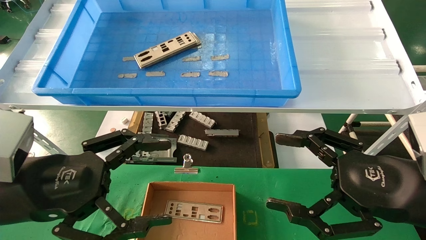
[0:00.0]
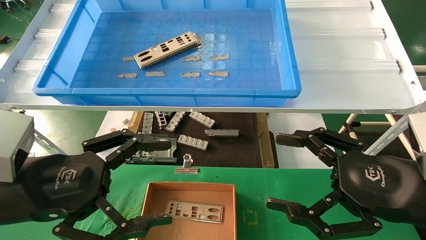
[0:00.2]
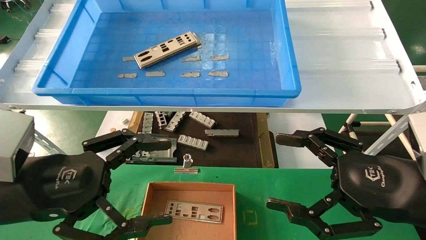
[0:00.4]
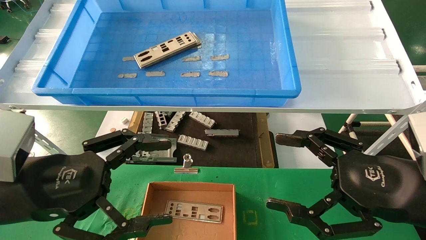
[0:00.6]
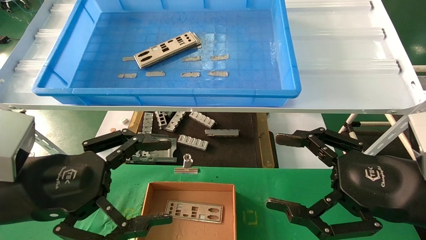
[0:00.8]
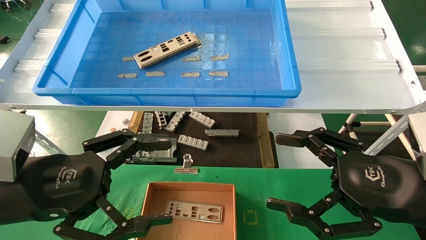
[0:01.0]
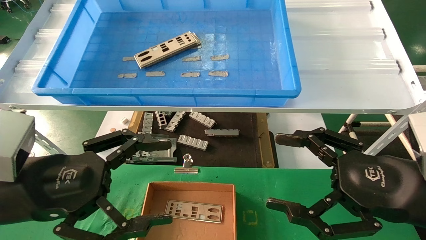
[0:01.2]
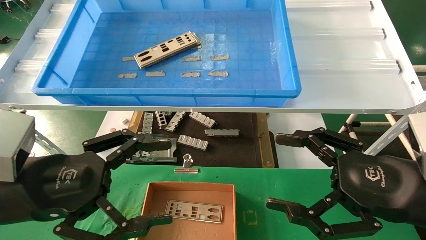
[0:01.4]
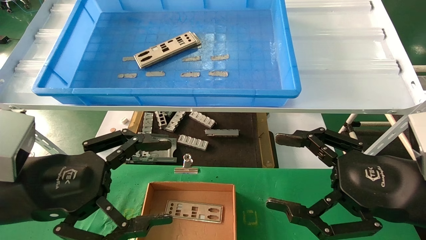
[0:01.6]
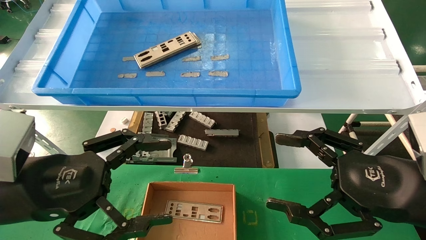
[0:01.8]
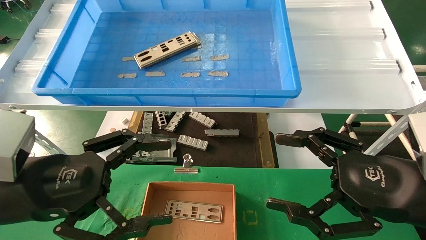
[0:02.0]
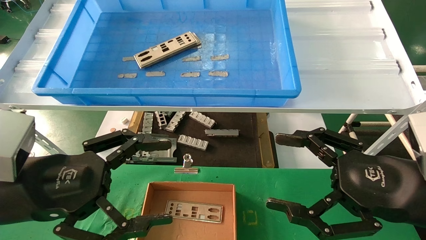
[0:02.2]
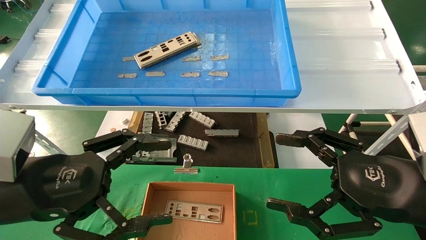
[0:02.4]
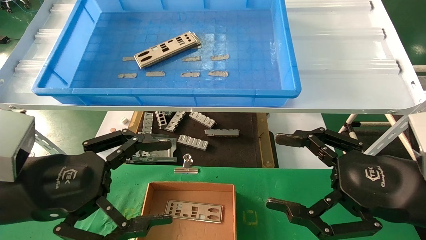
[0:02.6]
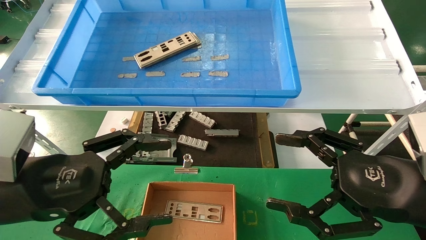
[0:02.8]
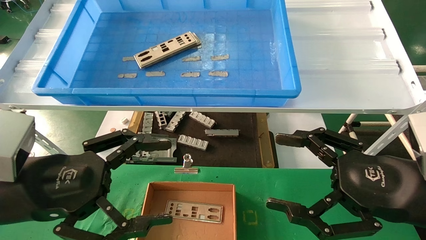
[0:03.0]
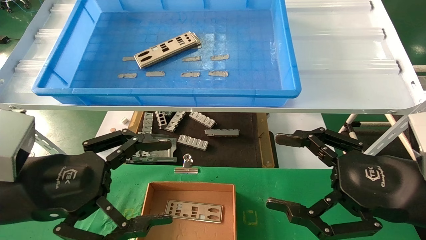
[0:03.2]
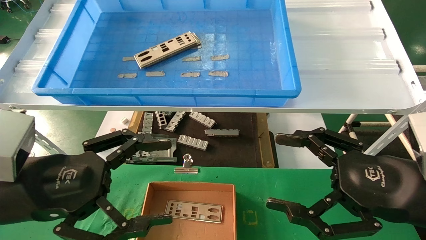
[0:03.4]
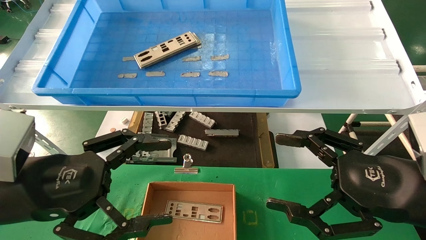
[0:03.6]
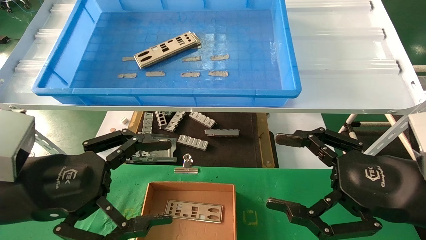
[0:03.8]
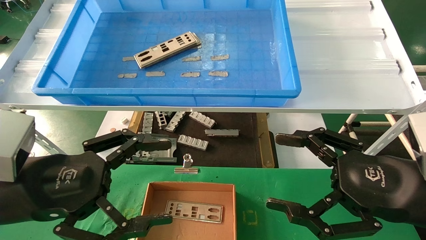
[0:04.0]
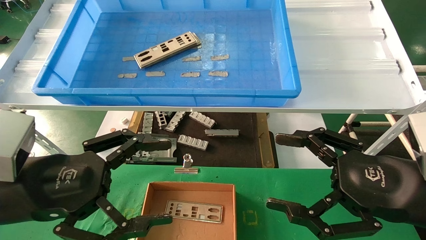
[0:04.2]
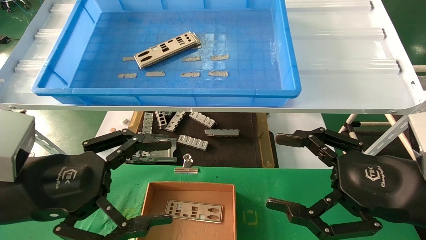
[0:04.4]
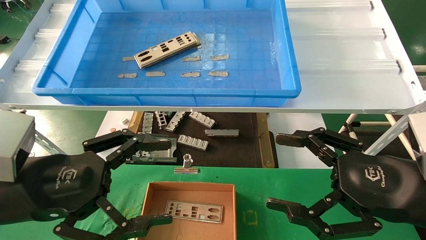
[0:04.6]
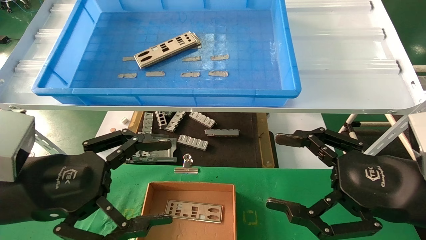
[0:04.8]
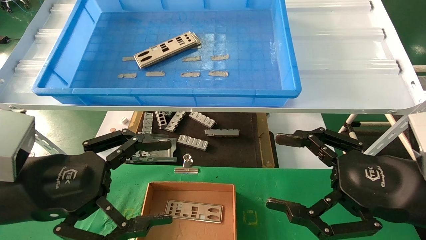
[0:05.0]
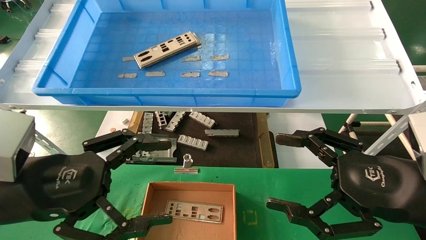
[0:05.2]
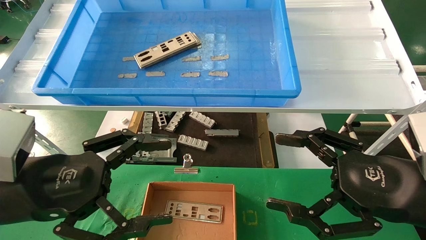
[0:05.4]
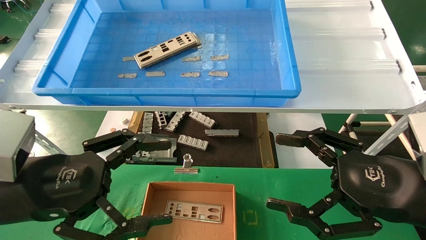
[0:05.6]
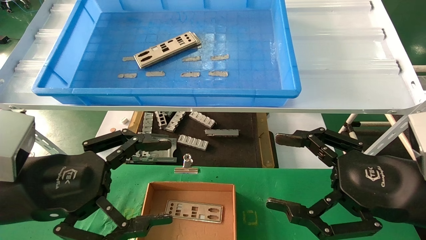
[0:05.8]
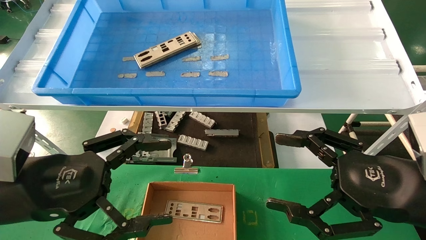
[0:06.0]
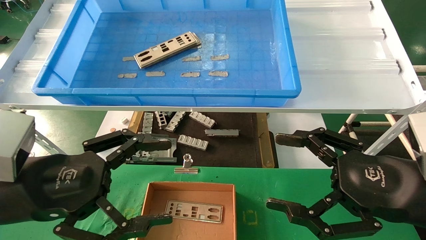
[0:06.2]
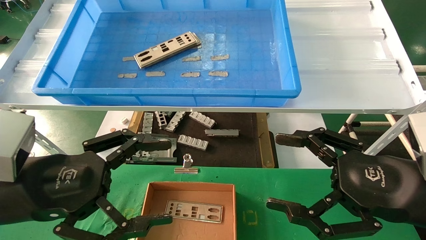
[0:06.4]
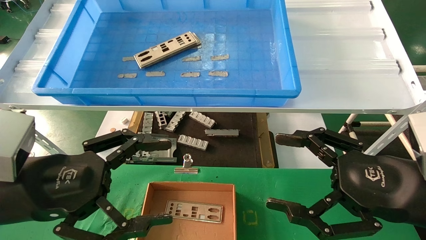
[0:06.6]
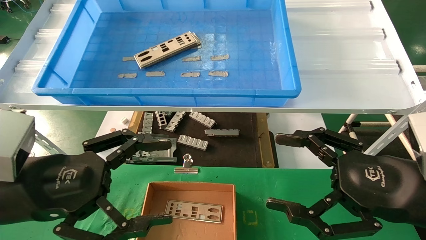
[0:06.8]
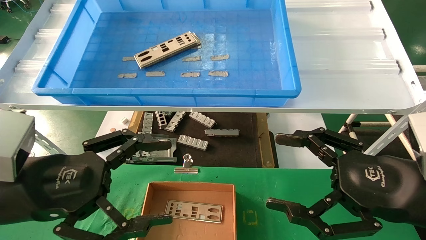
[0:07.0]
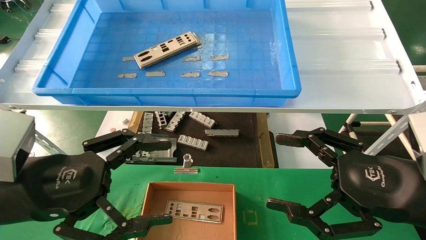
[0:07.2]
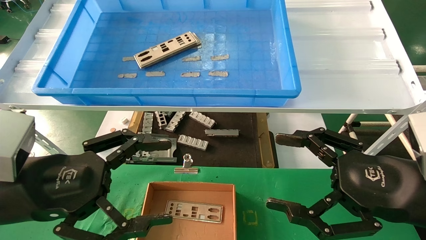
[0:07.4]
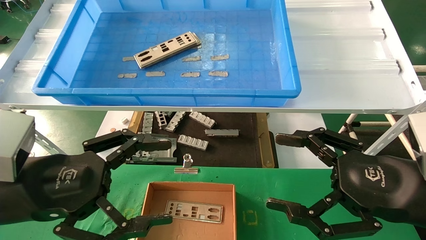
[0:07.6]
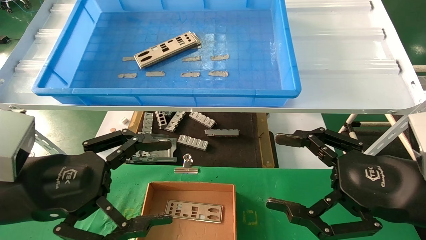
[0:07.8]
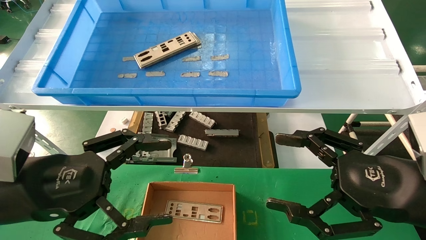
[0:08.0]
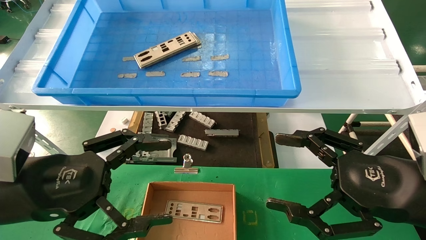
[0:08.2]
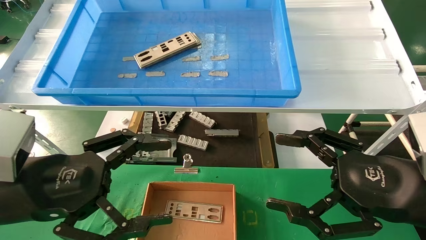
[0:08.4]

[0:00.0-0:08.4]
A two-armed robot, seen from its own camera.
Task of the whole recording: pick up the parts on the tray and put them in the cardboard box.
0:00.0 to 0:08.4: Both grippers stay about where they are.

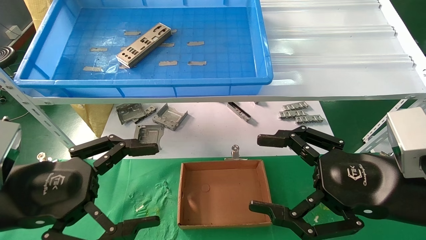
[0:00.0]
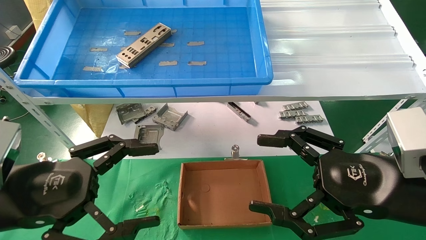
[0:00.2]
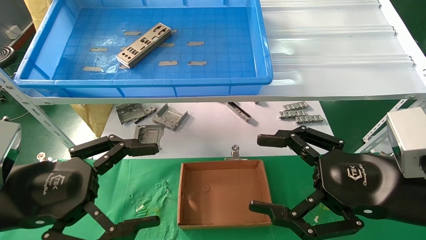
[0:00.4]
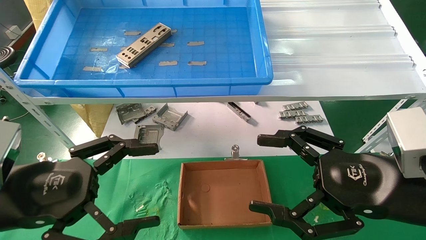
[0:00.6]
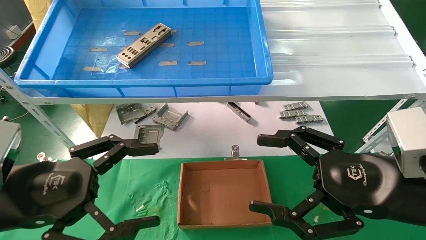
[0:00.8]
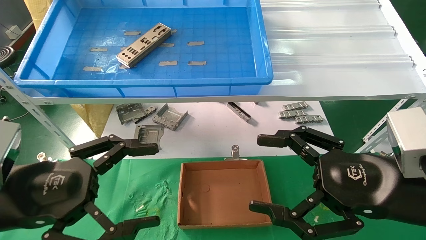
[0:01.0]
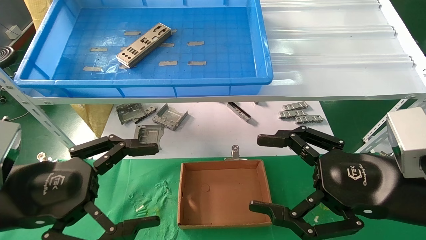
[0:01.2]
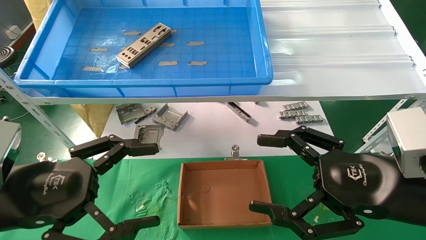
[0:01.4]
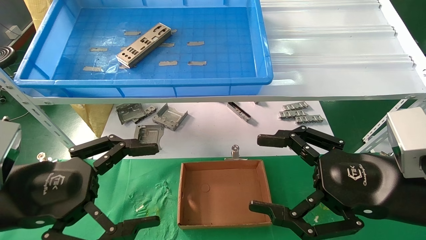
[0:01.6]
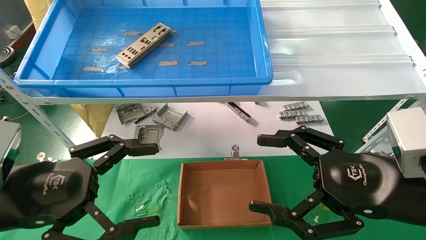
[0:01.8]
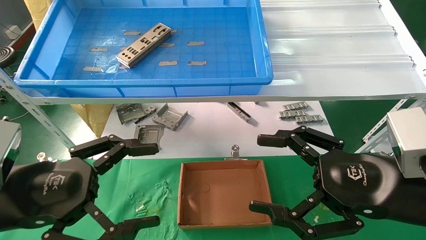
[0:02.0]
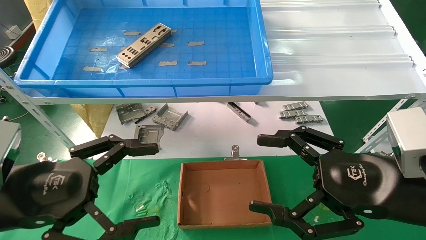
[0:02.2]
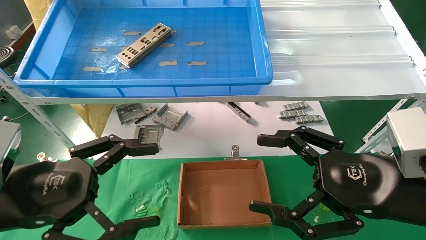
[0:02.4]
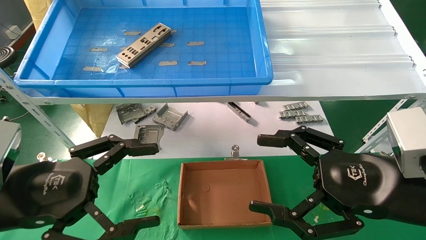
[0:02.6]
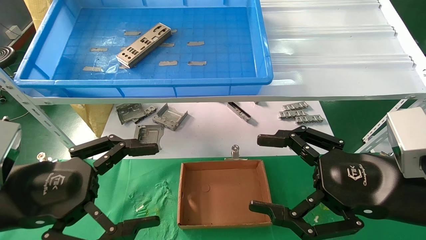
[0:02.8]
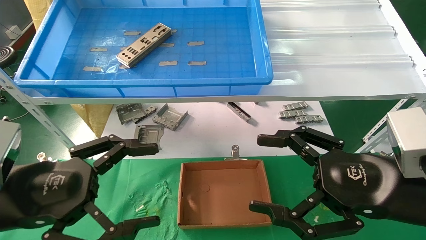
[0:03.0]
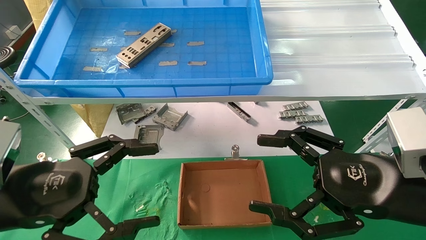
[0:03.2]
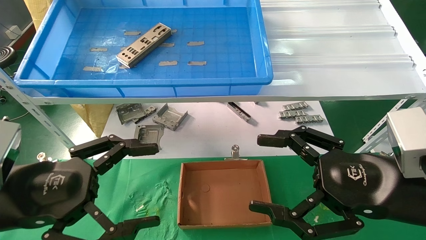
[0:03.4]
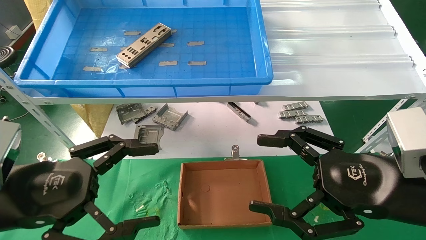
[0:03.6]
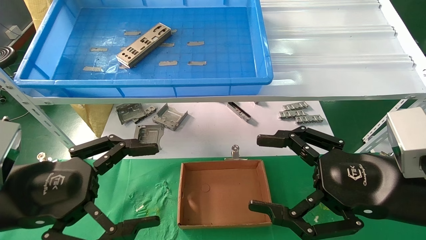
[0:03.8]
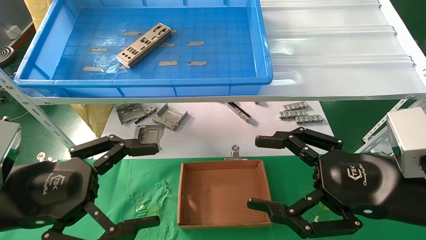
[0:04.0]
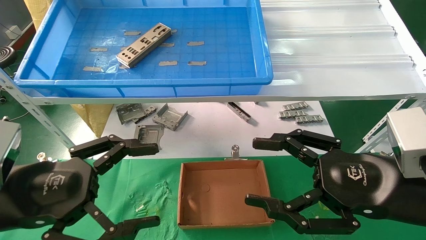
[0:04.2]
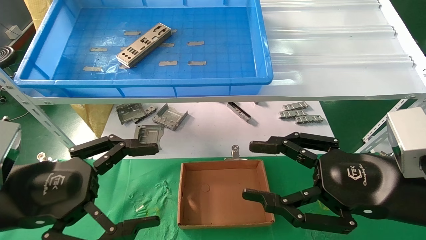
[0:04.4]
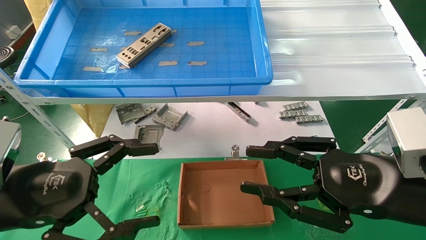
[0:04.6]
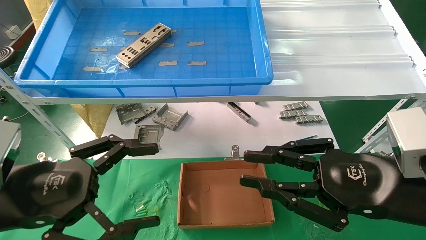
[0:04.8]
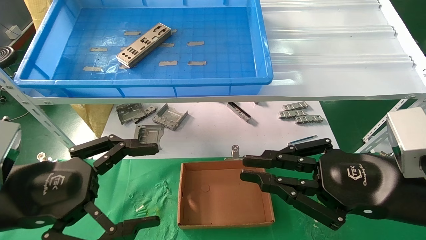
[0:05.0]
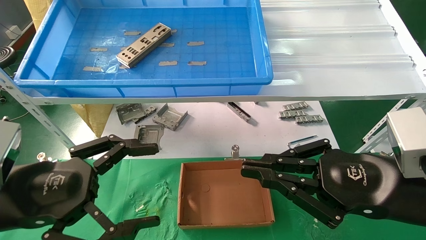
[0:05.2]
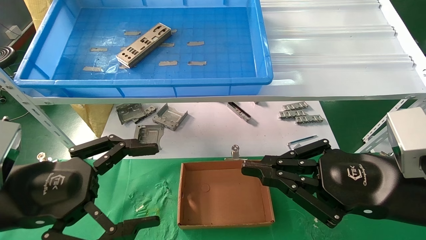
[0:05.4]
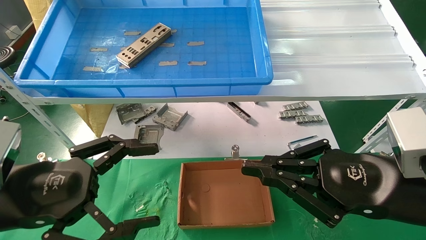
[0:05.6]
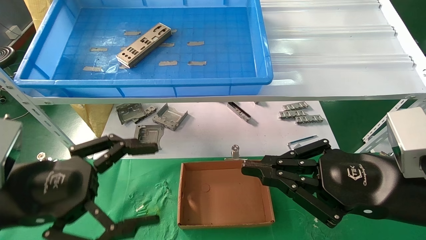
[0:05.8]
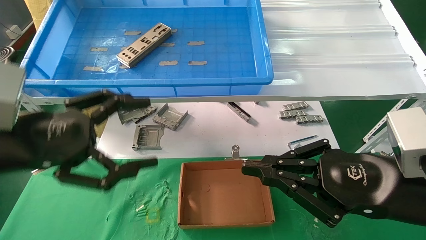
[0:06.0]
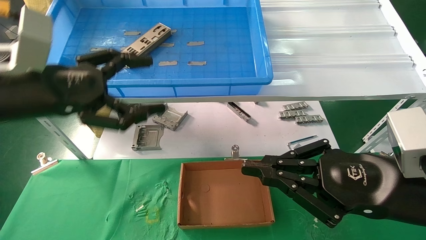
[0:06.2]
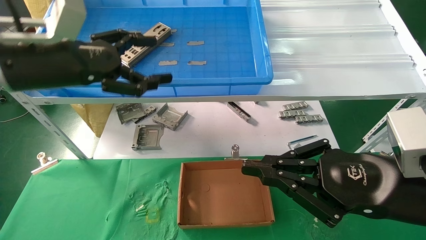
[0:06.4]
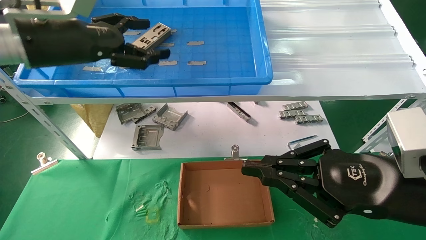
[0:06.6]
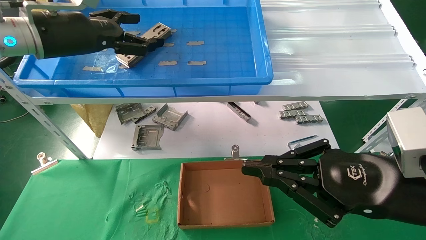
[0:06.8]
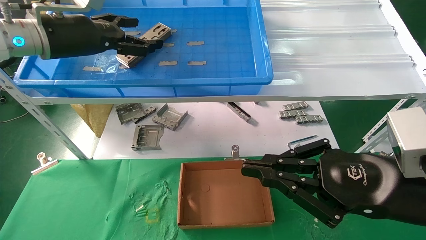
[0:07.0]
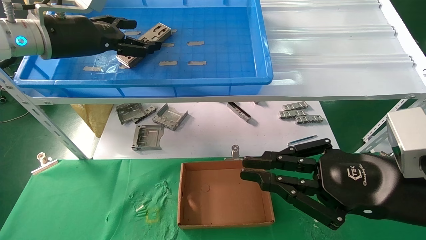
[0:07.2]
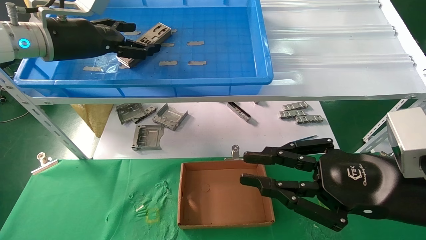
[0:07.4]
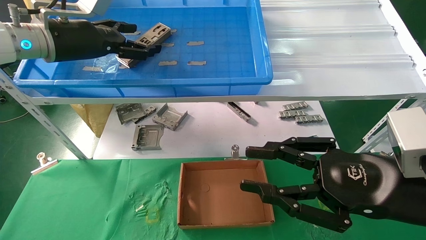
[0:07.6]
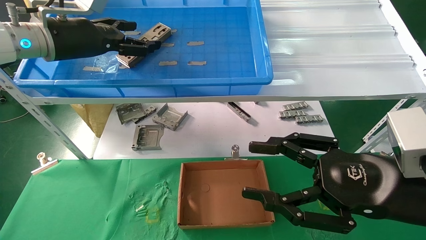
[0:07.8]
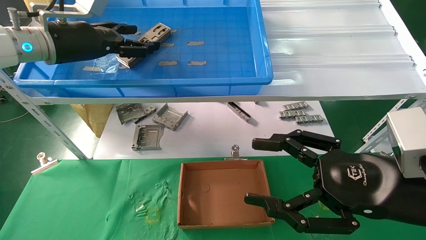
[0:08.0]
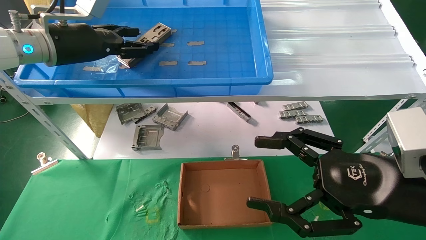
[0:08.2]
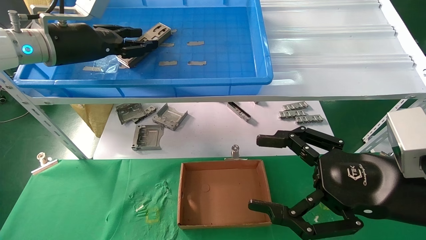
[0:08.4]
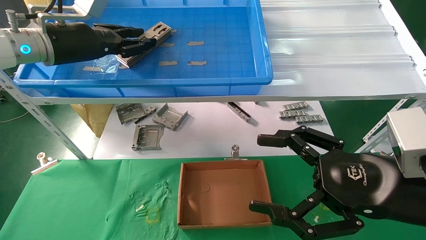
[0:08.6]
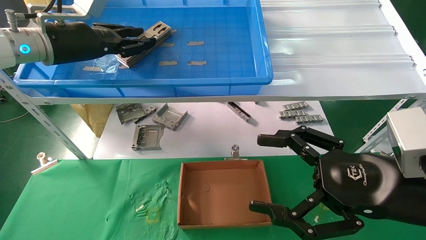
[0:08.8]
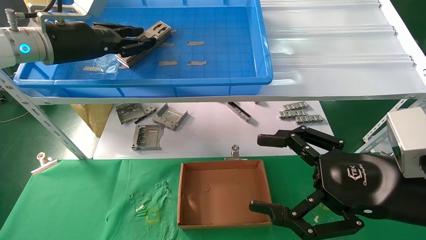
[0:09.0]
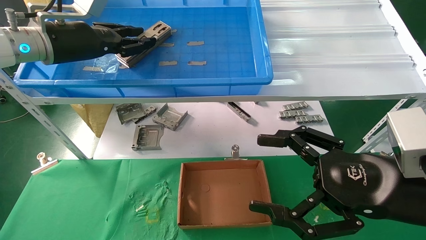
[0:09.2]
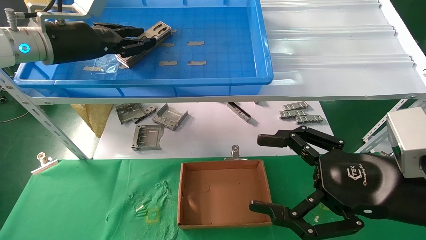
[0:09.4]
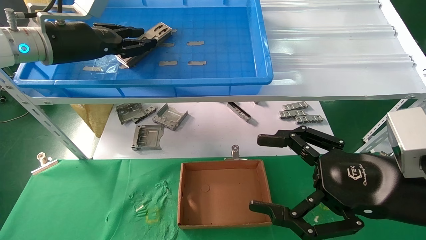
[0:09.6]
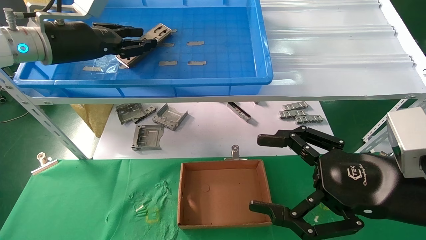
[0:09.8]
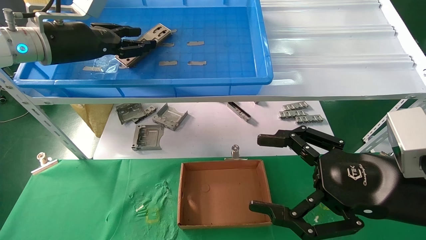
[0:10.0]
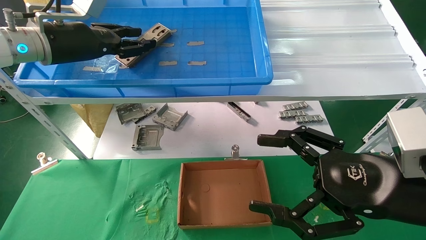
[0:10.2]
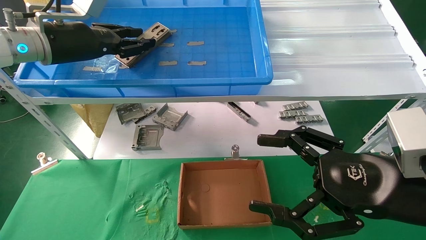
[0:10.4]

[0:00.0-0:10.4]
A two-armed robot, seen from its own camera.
Task of the whole recording: pick up the parts on the tray and put them in the cardboard box.
0:00.0 to 0:04.4: The two grippers keep their place.
0:04.4 to 0:06.0: The left gripper goes some 5 cm upward. Meanwhile the right gripper closes its fingers.
0:06.0 to 0:07.4: The left gripper heads forward and upward, covering approximately 20 cm.
0:07.4 to 0:09.0: The right gripper opens. The left gripper closes its fingers.
0:09.0 to 0:10.4: Both grippers stay put.
